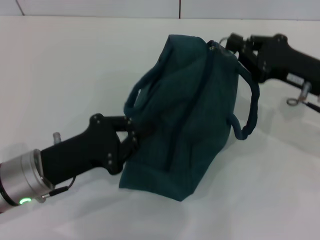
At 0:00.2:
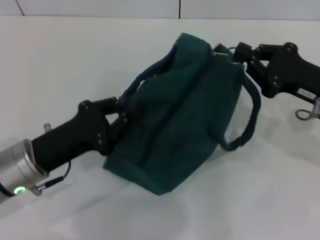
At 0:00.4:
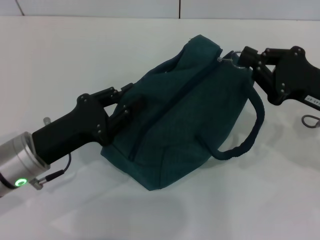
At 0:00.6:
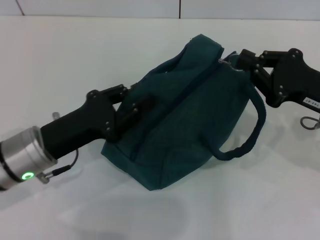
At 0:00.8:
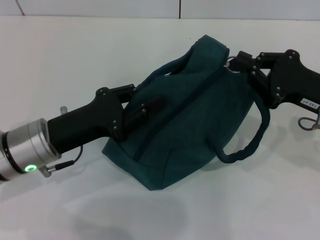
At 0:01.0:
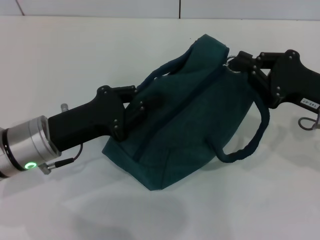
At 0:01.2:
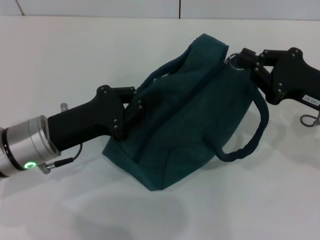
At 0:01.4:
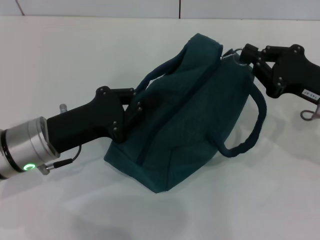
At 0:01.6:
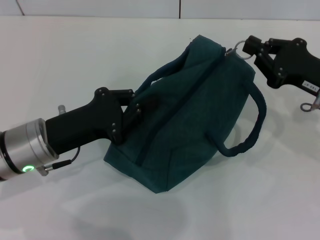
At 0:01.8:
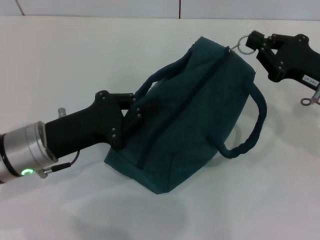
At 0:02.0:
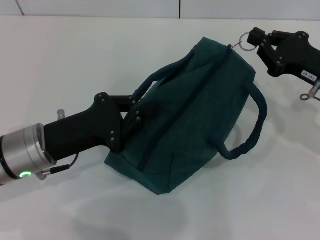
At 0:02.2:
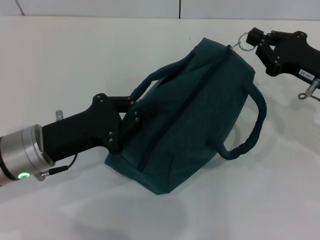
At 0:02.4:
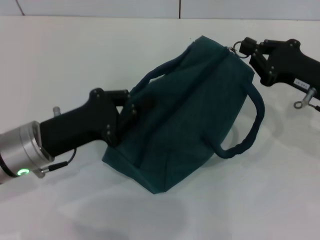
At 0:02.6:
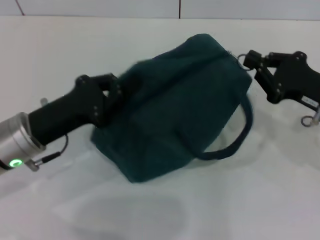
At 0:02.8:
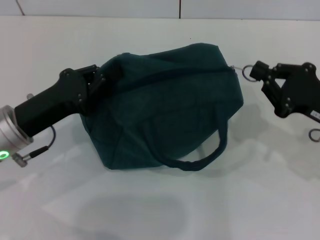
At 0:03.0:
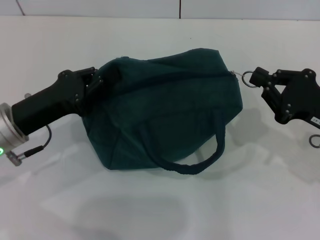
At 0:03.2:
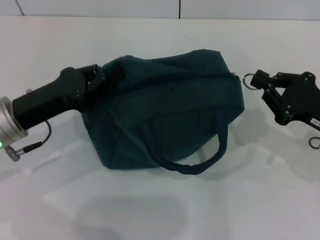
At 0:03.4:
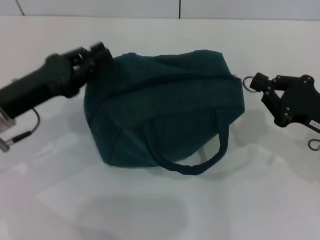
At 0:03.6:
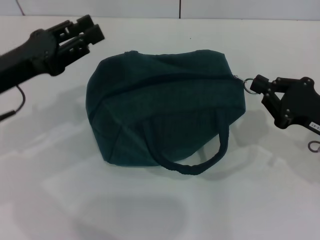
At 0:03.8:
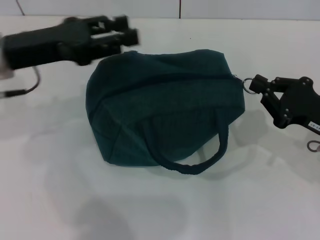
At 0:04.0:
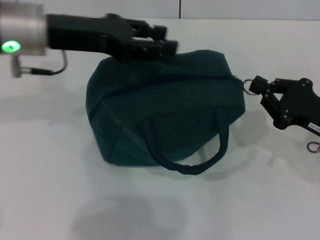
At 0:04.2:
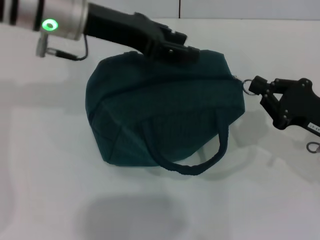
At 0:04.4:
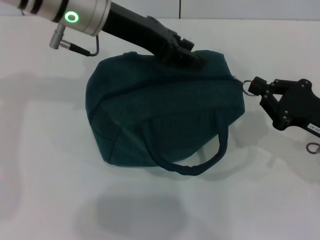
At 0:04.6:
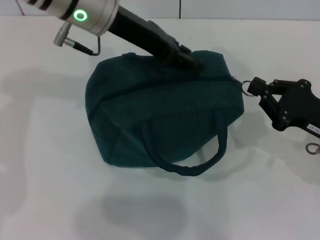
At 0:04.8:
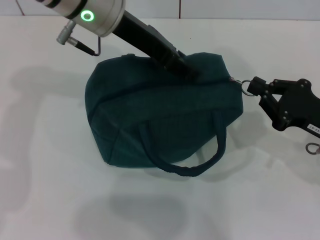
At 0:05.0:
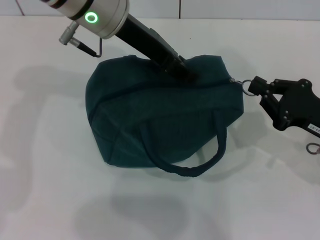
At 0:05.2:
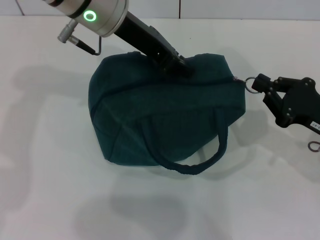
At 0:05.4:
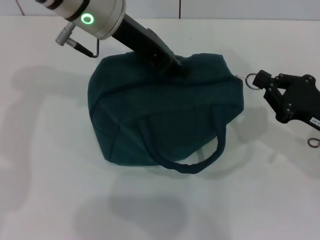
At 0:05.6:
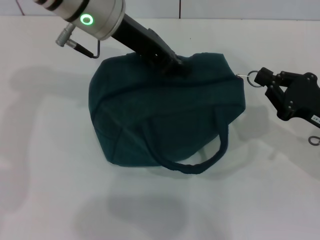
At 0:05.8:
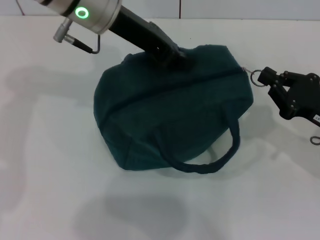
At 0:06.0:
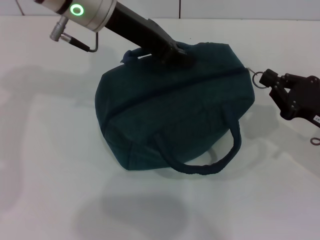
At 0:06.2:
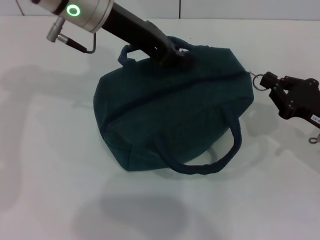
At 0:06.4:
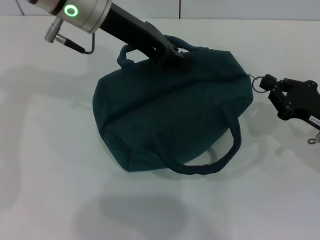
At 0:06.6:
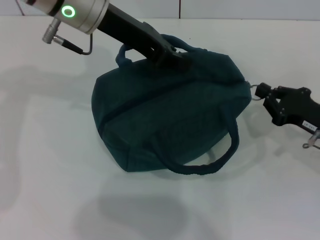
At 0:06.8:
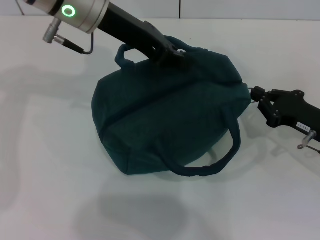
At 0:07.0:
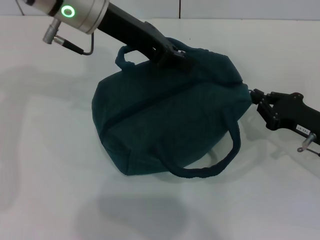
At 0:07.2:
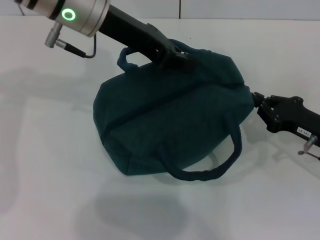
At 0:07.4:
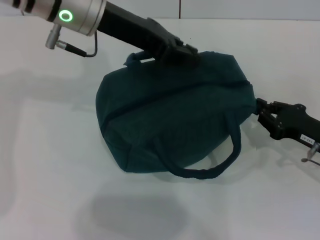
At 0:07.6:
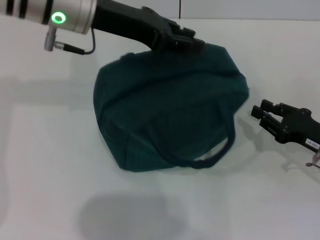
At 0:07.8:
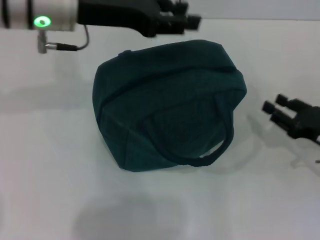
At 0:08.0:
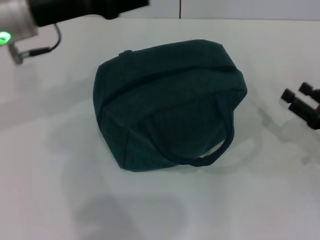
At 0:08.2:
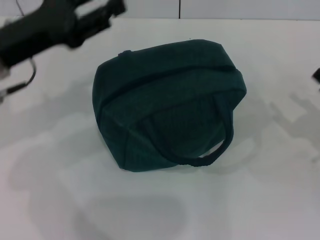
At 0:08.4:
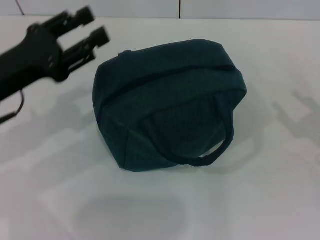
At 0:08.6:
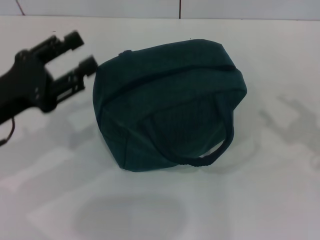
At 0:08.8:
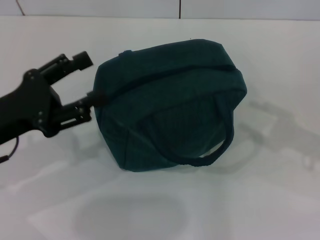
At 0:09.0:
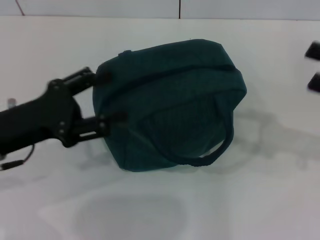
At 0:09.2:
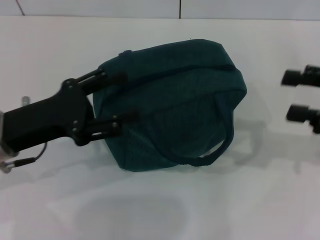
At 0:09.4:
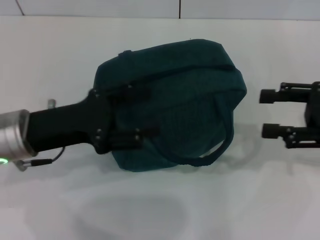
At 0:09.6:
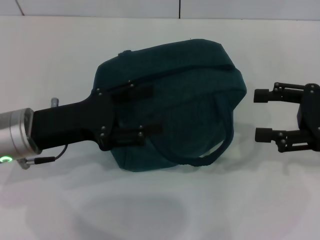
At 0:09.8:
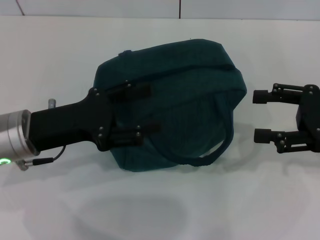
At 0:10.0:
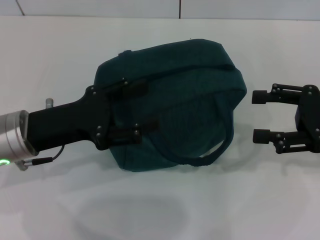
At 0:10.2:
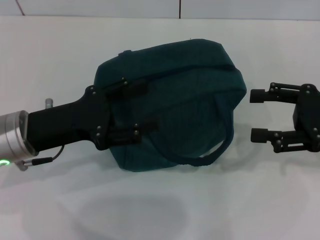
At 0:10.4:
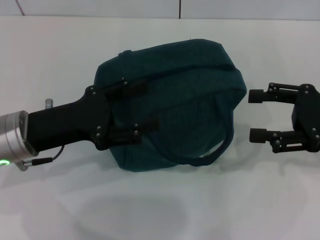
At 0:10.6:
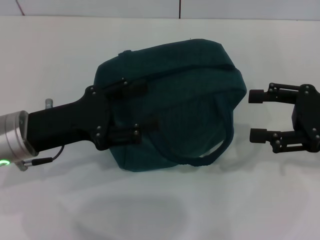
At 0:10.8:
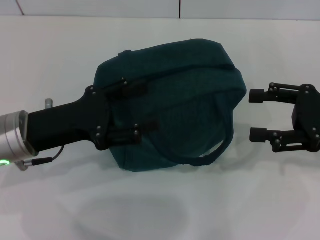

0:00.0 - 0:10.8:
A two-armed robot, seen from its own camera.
Step, 0:00.0 - 0:07.4: Zip up the lunch bag with your right hand.
0:00.0 - 0:01.6: There are only small adjustments of the grippers.
0:03.0 - 0:04.6: The left gripper travels upward, to the right and forward by about 25 cm, and opens up.
0:04.6 - 0:06.2: The left gripper closes its fingers.
0:06.2 - 0:07.8: The left gripper heads to the left, covering some 5 cm.
0:07.8 - 0:09.2: The left gripper heads backward, downward and to the left, covering about 20 cm, and opens its fingers; the right gripper shifts roughly 15 cm upward, and opens up.
0:09.2 - 0:10.8: The grippers stay close to where they were, moving slightly.
